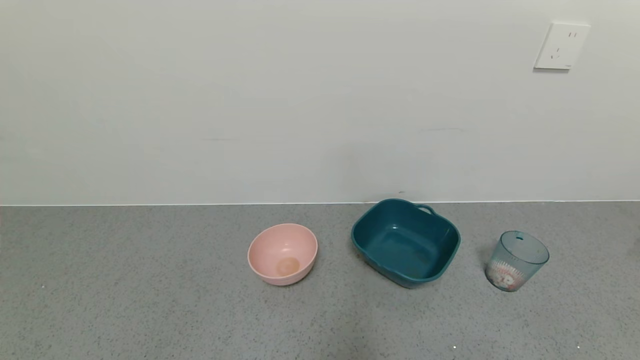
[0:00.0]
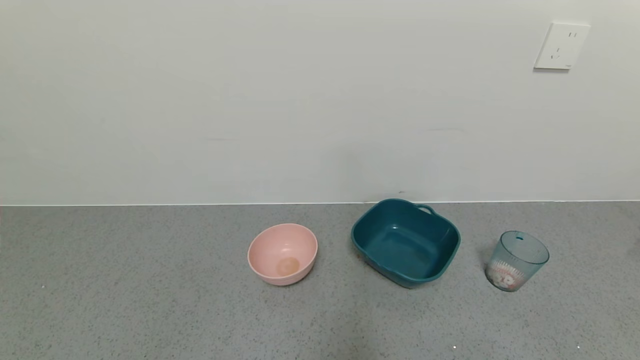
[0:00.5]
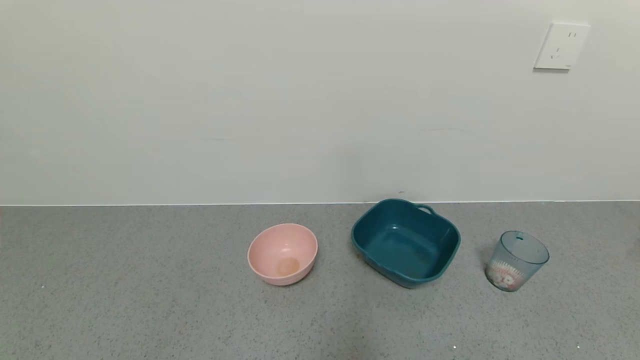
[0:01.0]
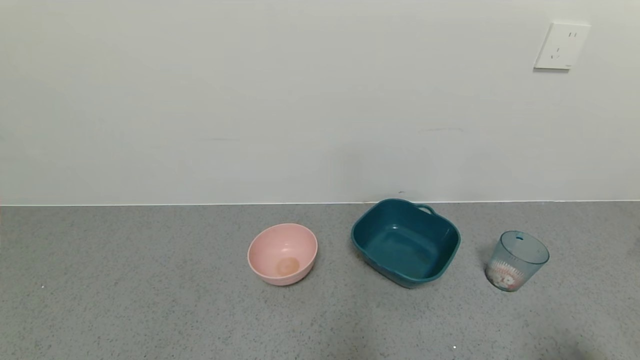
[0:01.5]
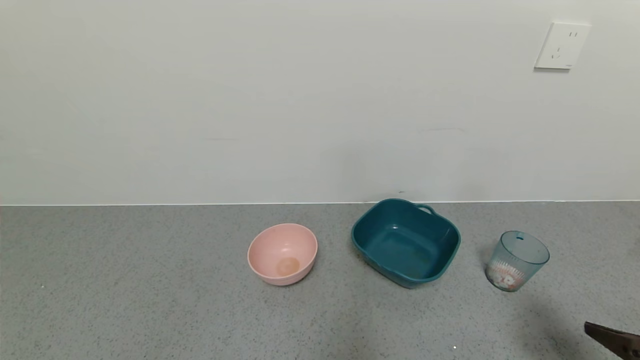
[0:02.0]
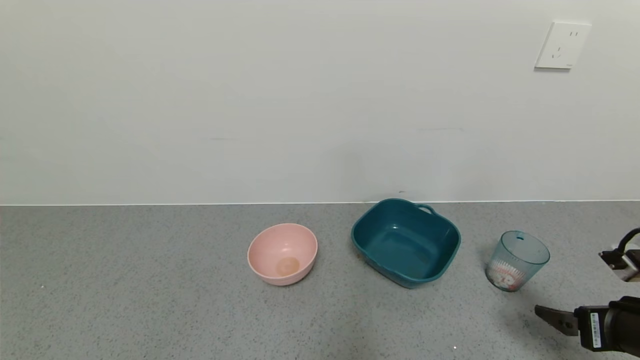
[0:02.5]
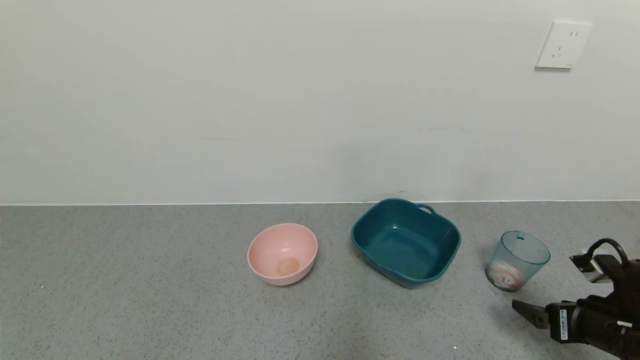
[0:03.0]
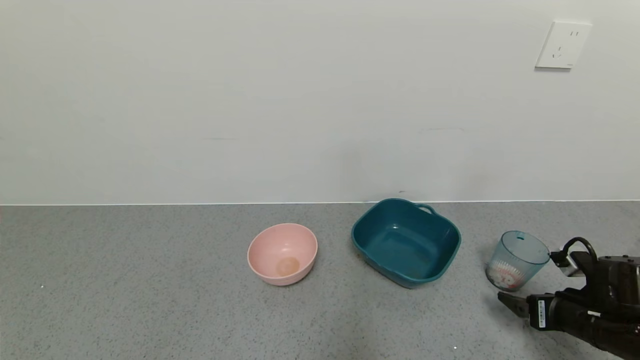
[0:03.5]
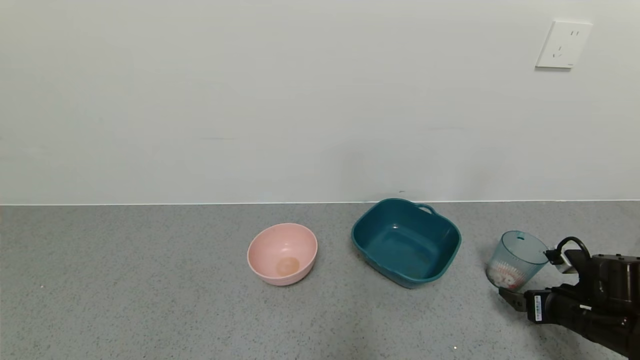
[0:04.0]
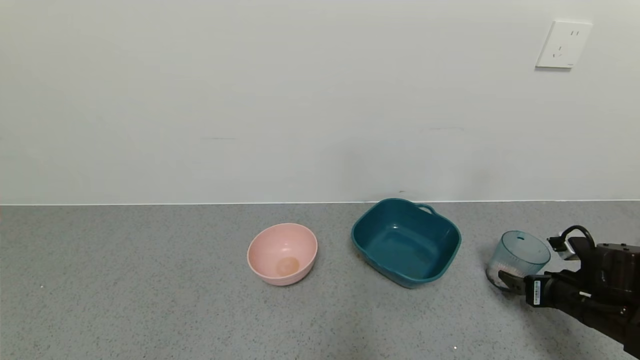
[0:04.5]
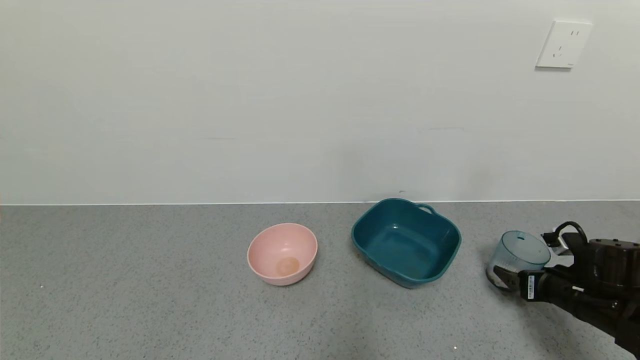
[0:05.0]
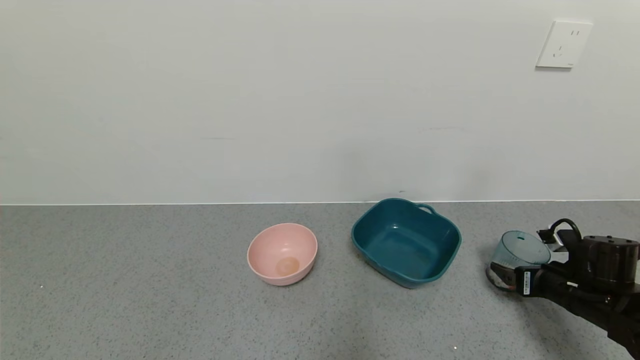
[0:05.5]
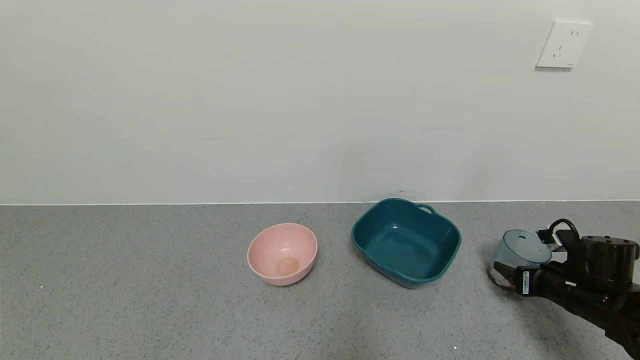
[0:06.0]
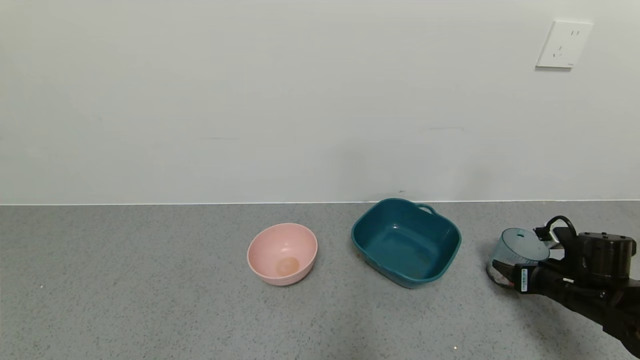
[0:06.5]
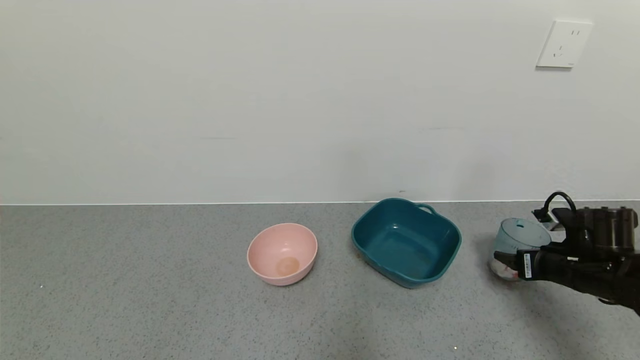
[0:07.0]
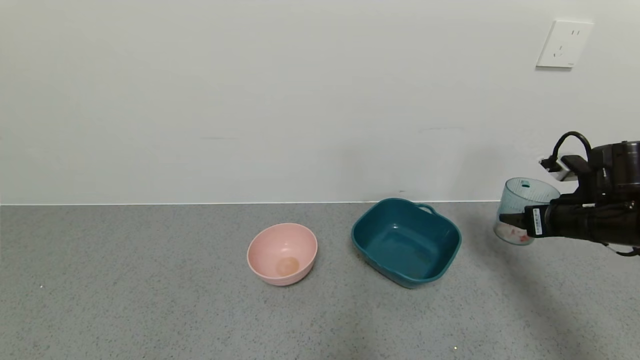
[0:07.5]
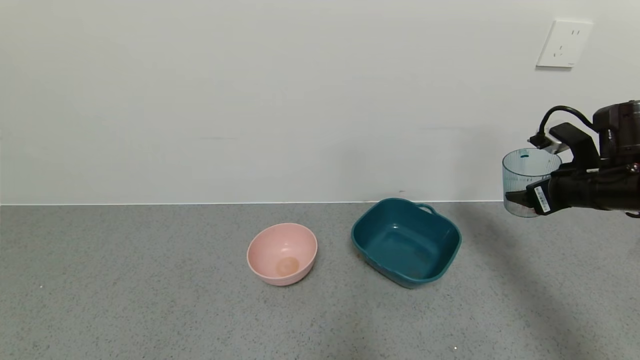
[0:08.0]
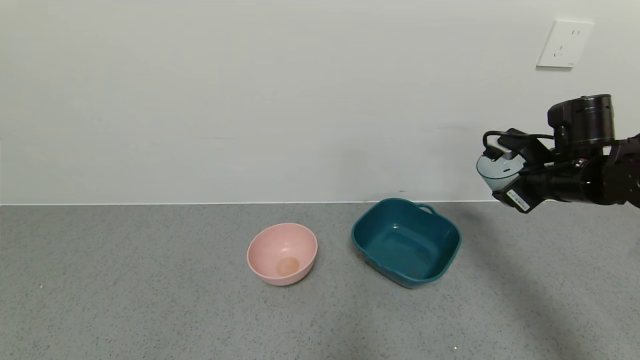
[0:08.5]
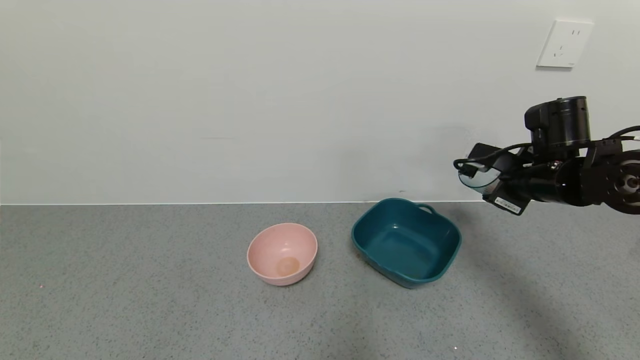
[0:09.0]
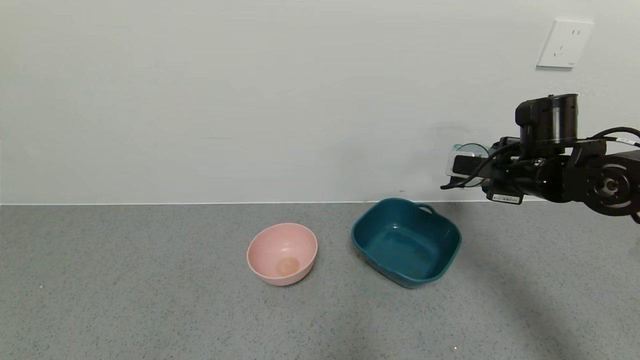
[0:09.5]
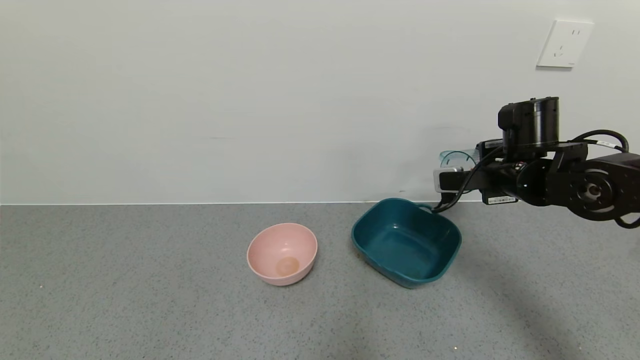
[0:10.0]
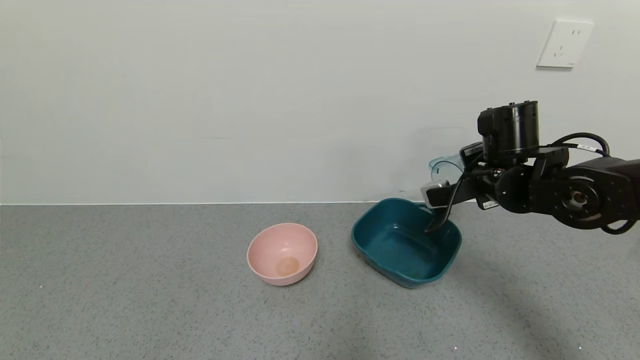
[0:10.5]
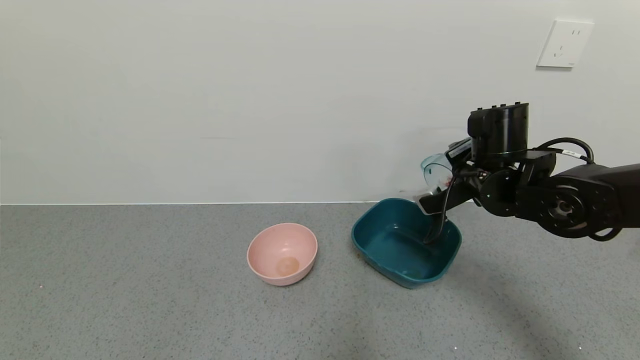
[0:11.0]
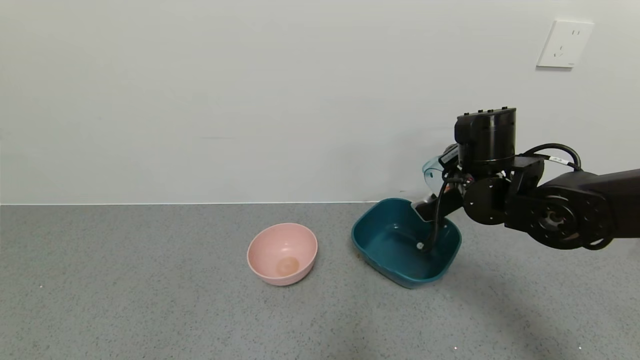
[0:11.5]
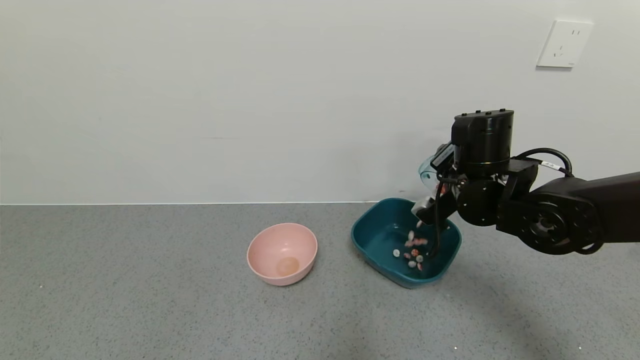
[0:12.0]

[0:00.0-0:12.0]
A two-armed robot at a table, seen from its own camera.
Task of the whole recording: use a gripper to pick up the cup and pour the solid into a bowl or tray.
Step, 0:00.0 to 0:06.0: Grasp the glass of shrimp with the right gripper.
0:00.0 to 0:02.0: The right gripper moves forward and upward, roughly 15 cm.
0:02.0 to 0:04.0: The right gripper moves forward and downward, approximately 20 cm.
0:04.0 to 0:06.0: The right gripper closes its fingers.
0:06.0 to 0:08.0: The right gripper is displaced upward by roughly 20 cm.
0:08.0 to 0:10.0: The right gripper heads to the left, covering approximately 10 cm.
0:10.0 to 0:12.0: The right gripper goes roughly 5 cm to the left.

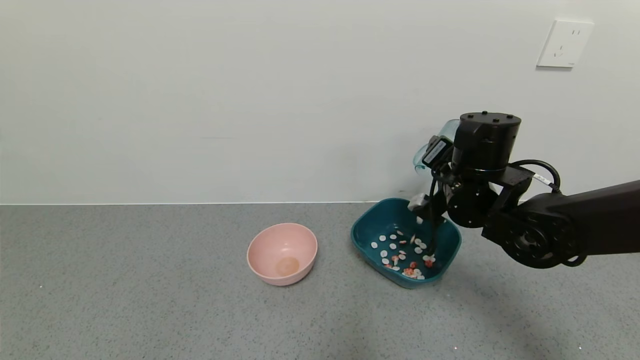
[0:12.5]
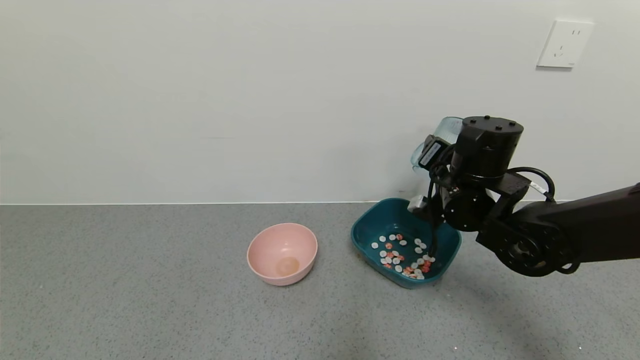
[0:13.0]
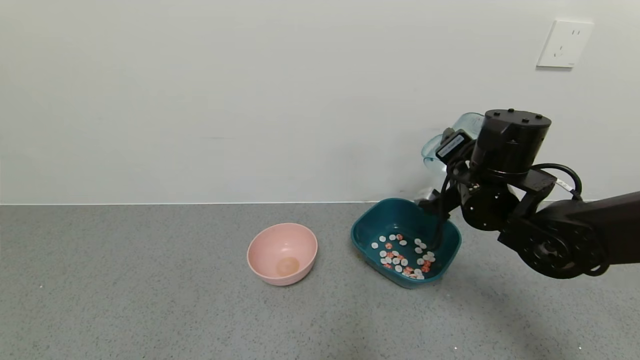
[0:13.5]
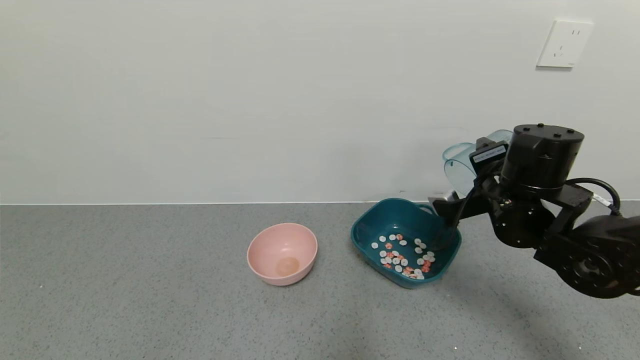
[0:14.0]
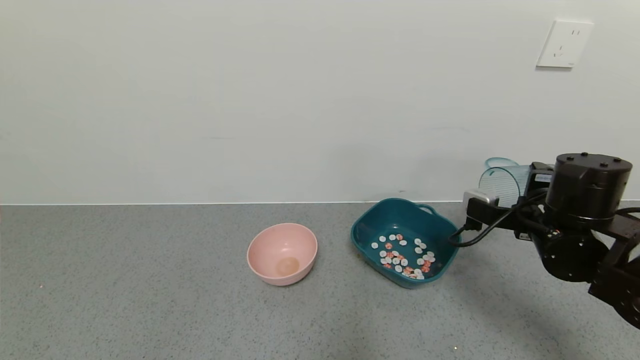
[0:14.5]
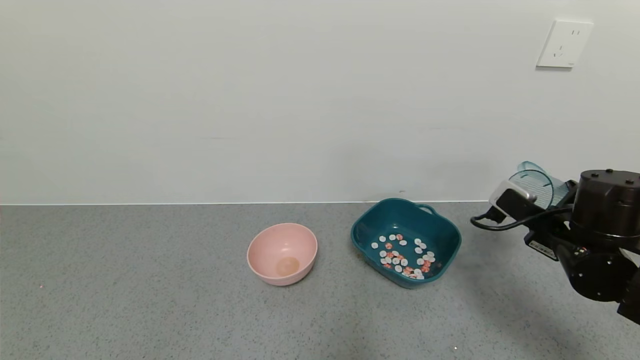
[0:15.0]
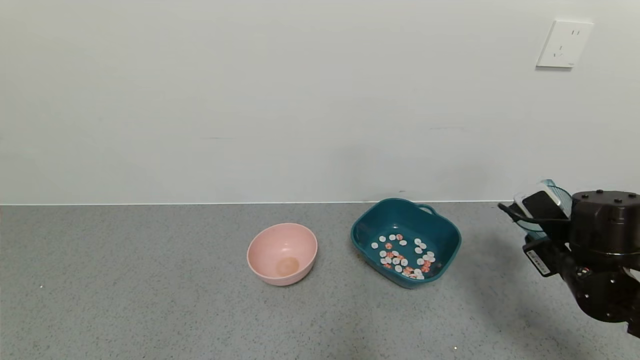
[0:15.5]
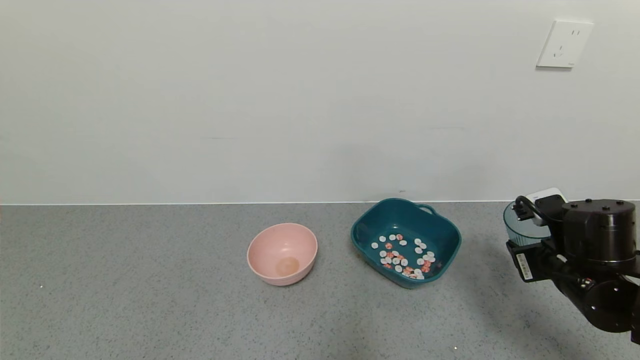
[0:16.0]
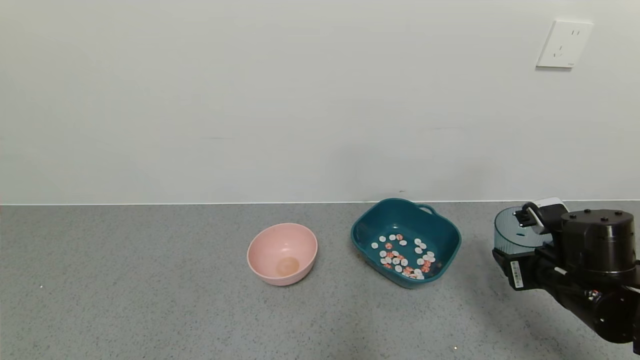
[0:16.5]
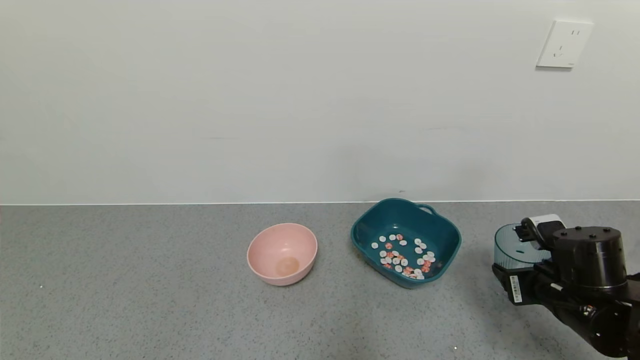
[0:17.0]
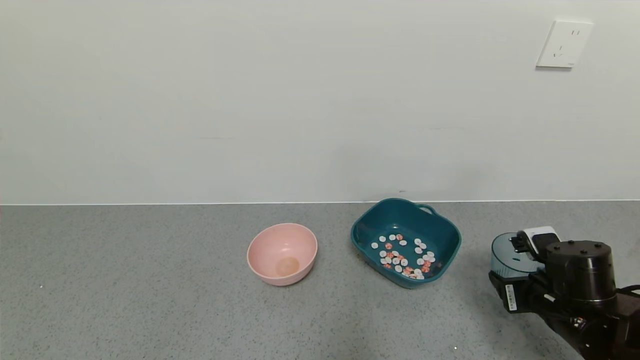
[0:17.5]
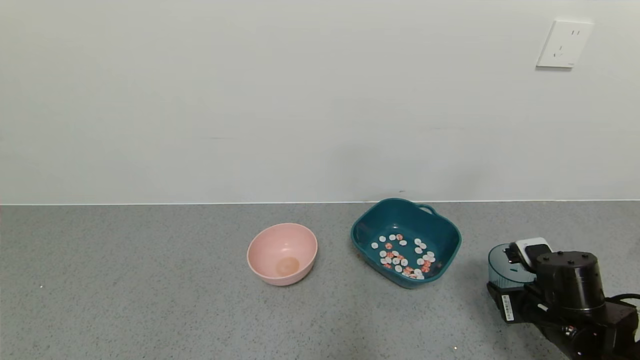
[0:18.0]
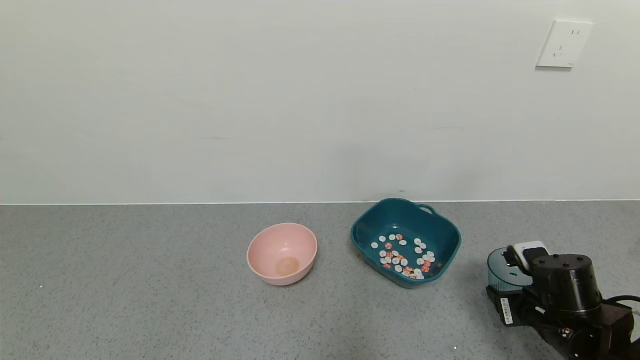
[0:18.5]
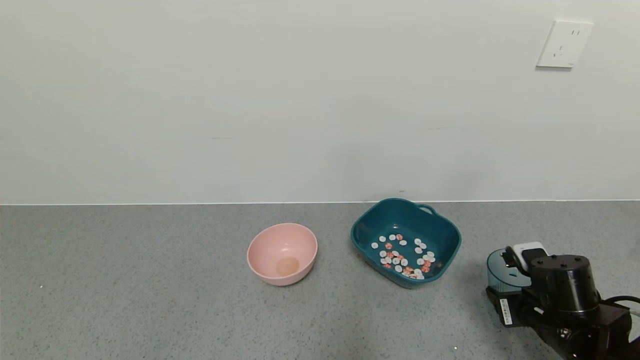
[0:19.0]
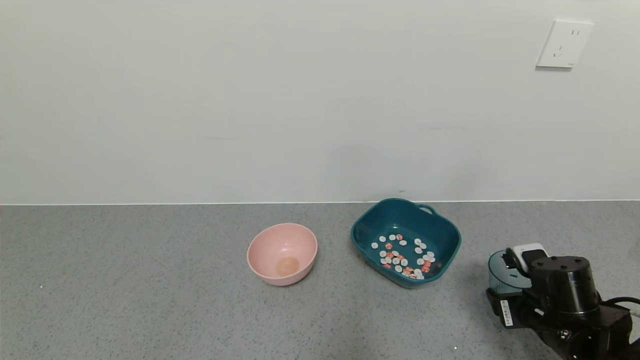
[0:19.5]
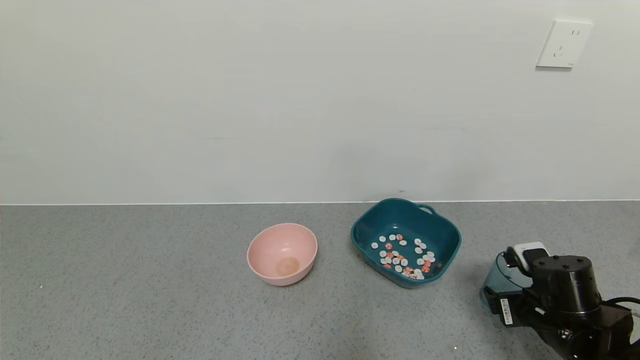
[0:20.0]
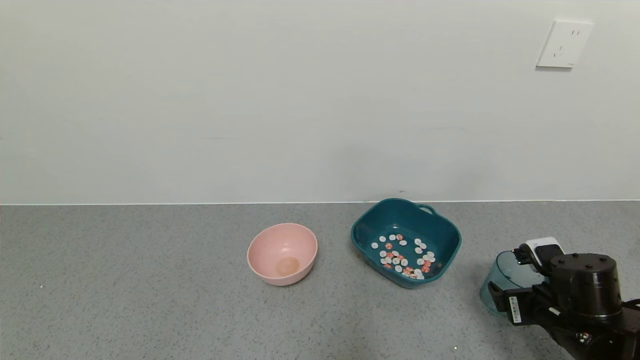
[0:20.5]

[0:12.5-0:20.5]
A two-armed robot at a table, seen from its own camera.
Task of the whole recording: use a gripper to pick up the cup and pour the solid into a bowl or tray.
0:12.5 to 0:14.5: The right gripper travels to the right and backward by some 10 cm.
0:14.5 to 0:16.5: The right gripper moves downward, approximately 5 cm.
0:16.5 to 0:18.5: The right gripper goes about 5 cm downward.
0:18.5 to 0:20.5: The right gripper opens.
